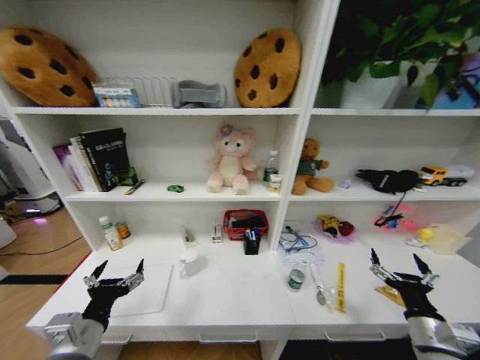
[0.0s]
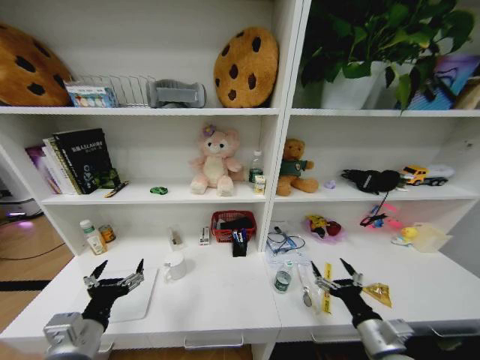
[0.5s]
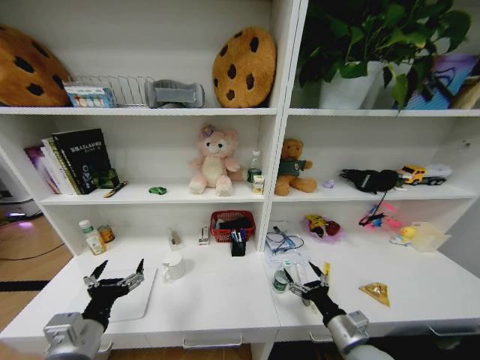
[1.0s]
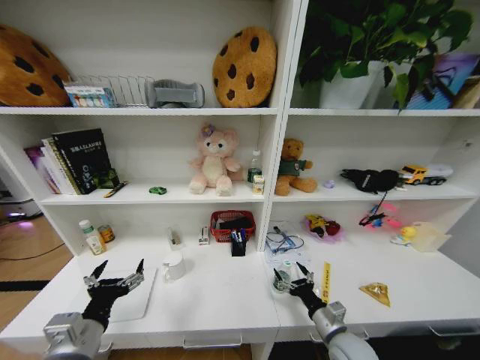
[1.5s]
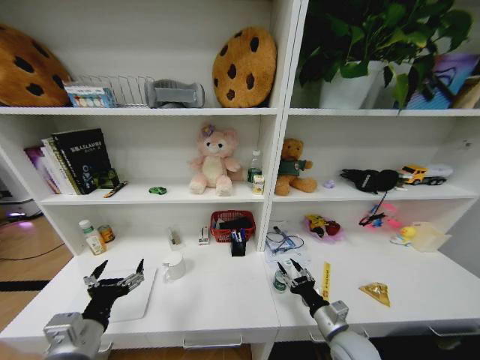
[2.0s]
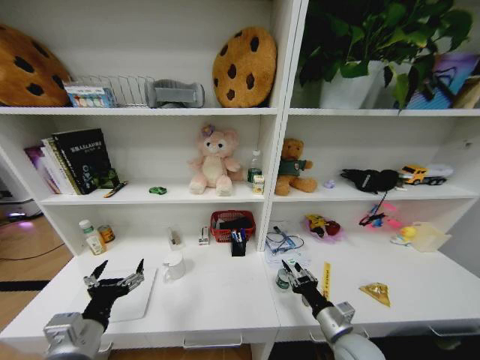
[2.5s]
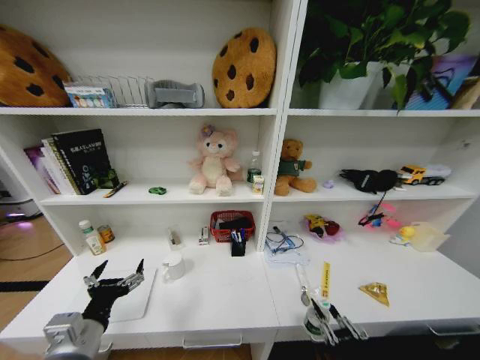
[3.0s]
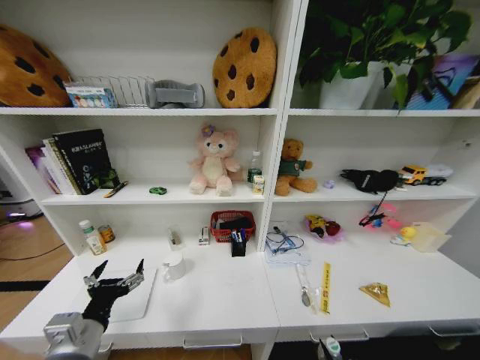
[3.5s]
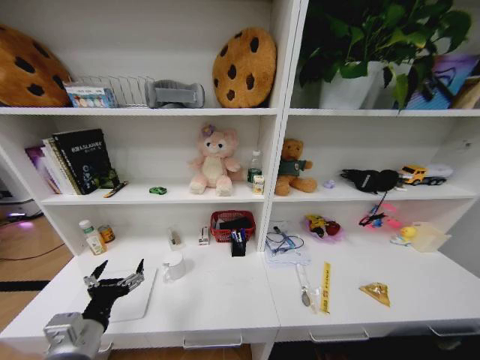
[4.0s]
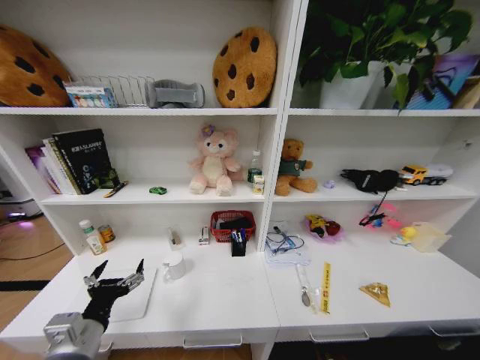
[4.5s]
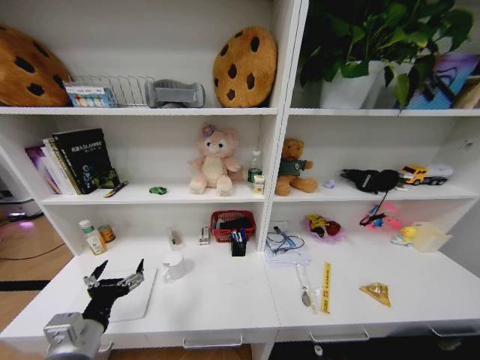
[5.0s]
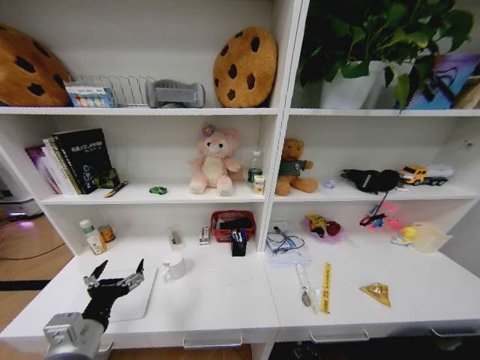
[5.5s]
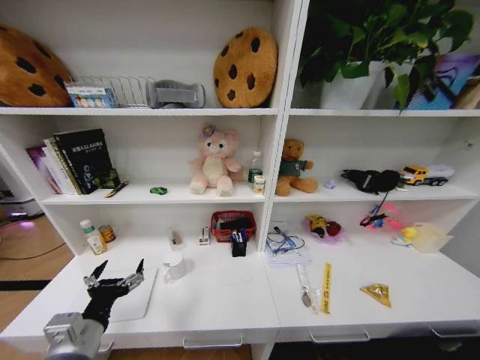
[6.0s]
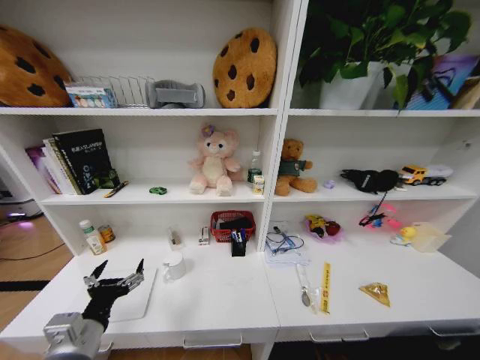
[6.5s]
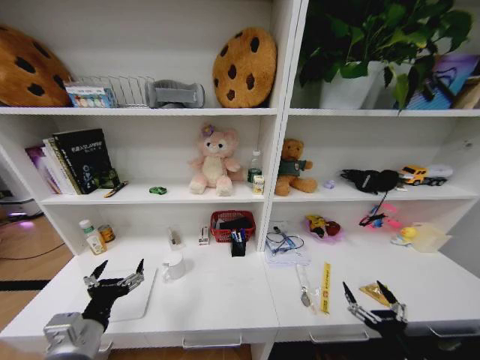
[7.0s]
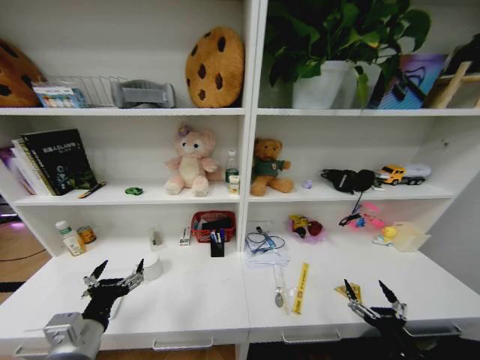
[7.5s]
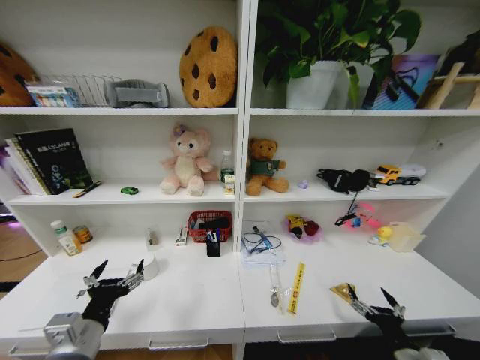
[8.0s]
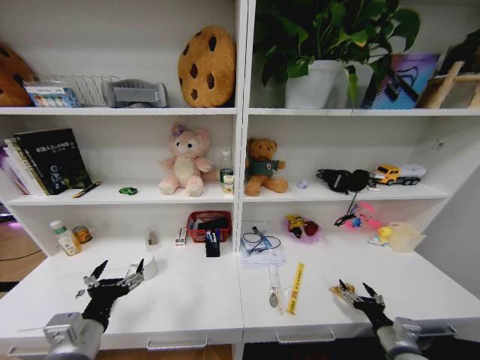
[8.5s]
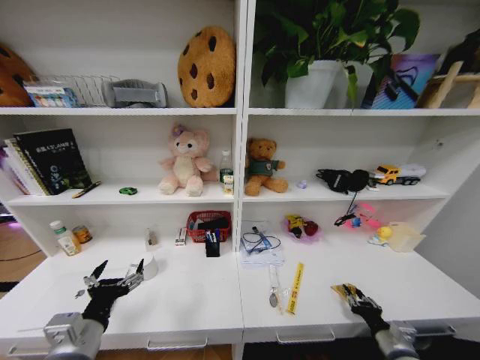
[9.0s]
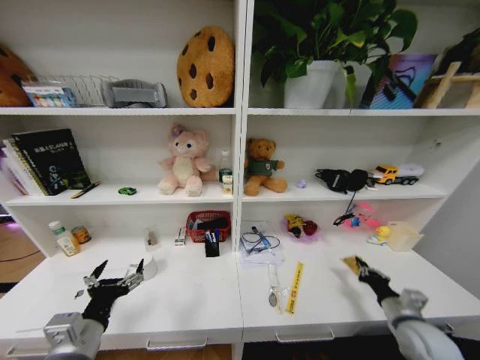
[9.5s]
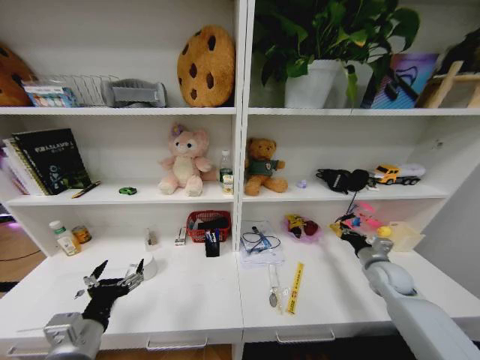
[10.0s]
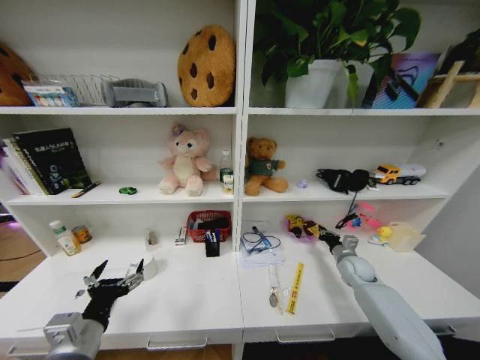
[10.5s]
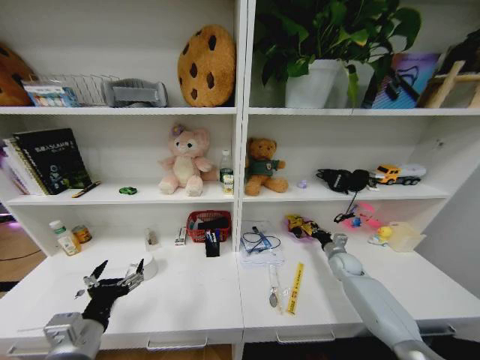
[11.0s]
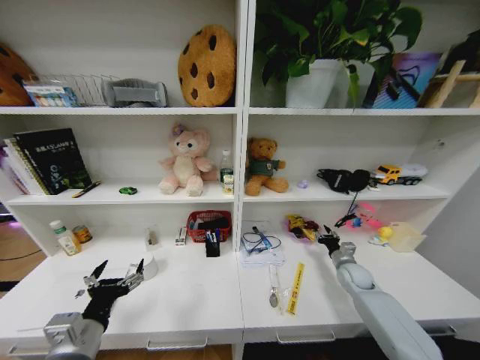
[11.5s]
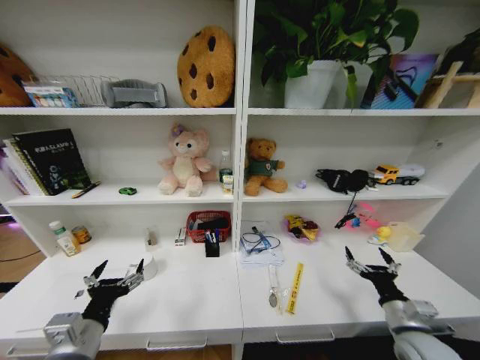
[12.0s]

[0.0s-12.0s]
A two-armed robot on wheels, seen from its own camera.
Task of the whole recording: Organize the objects on the table.
0.0s to 2.0s: The right gripper goes approximately 15 cm to the left and downward, and closes.
2.0s to 4.0s: The right gripper shifts roughly 30 cm backward and downward.
4.0s to 6.0s: The right gripper shifts roughly 20 cm downward and forward, and opens.
6.0s to 8.0s: The right gripper goes approximately 30 cm upward.
8.0s to 10.0s: The right gripper moves forward, some 25 cm, and closes up.
10.0s to 12.0s: The right gripper travels backward by some 15 cm, and opens.
